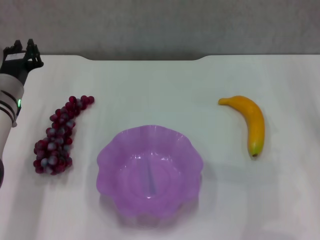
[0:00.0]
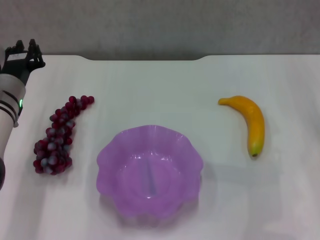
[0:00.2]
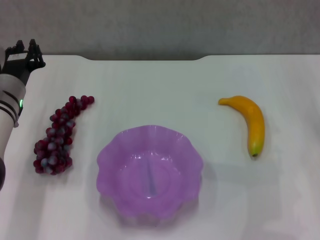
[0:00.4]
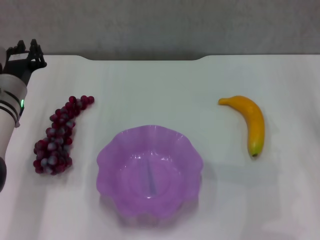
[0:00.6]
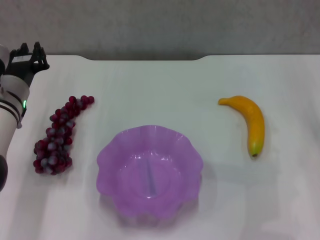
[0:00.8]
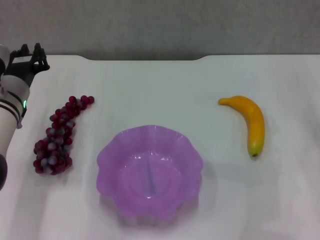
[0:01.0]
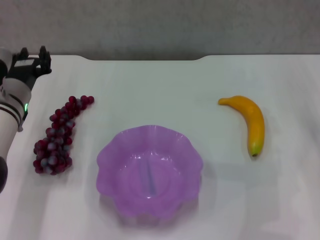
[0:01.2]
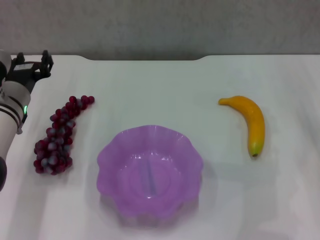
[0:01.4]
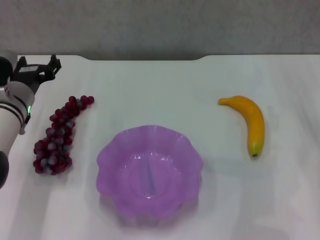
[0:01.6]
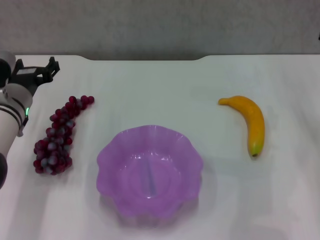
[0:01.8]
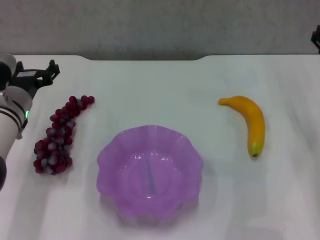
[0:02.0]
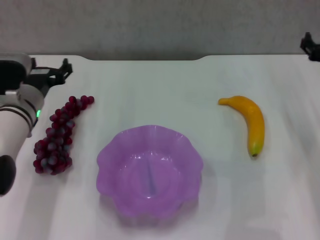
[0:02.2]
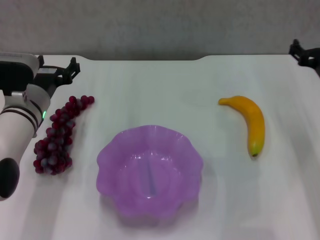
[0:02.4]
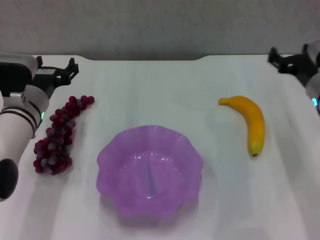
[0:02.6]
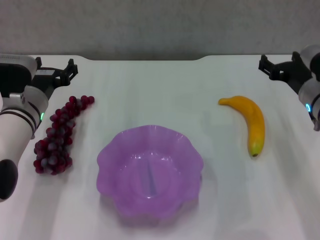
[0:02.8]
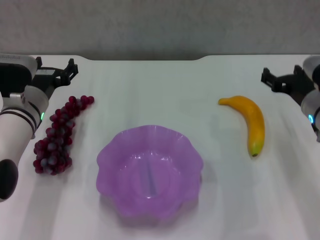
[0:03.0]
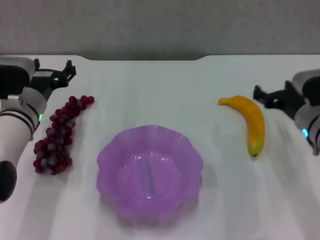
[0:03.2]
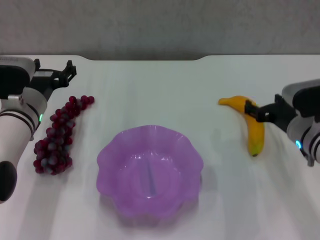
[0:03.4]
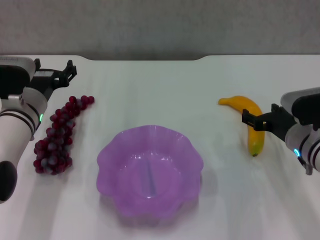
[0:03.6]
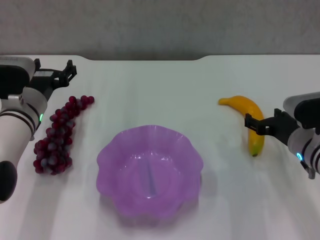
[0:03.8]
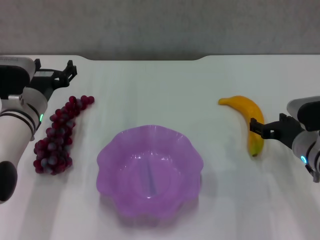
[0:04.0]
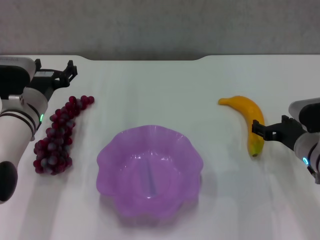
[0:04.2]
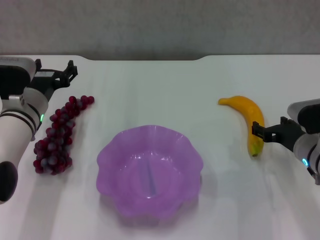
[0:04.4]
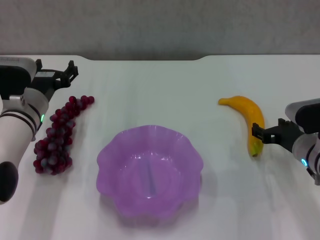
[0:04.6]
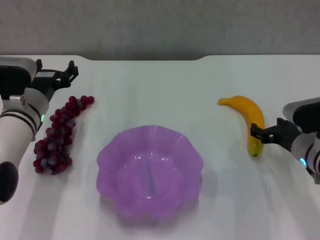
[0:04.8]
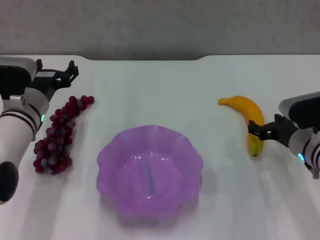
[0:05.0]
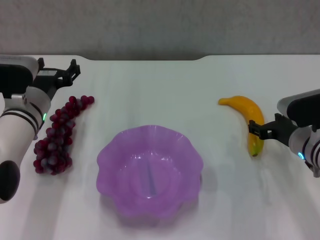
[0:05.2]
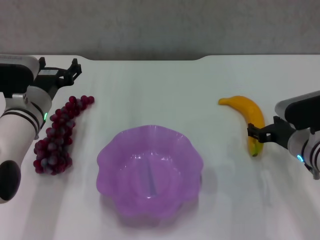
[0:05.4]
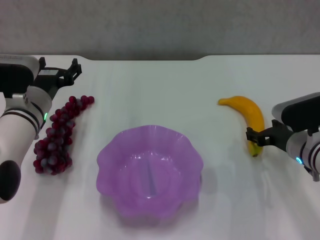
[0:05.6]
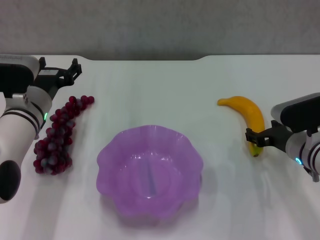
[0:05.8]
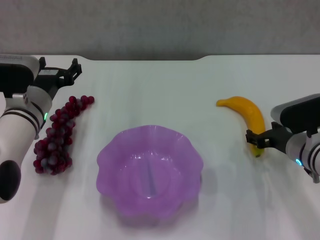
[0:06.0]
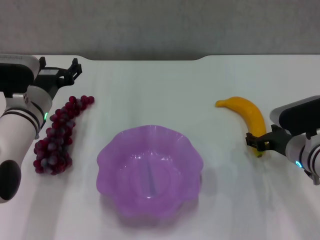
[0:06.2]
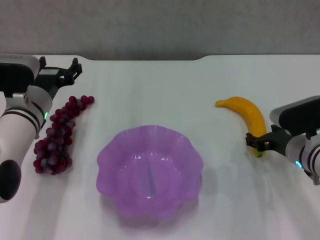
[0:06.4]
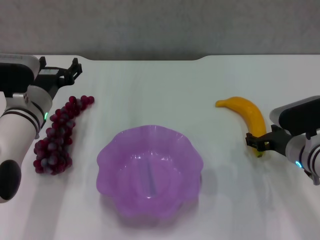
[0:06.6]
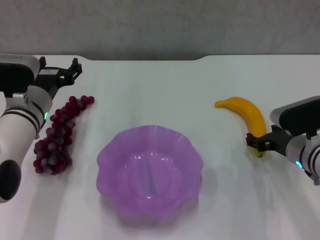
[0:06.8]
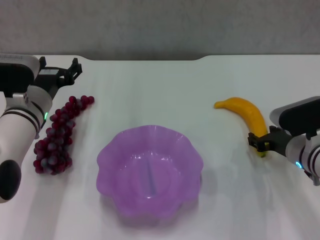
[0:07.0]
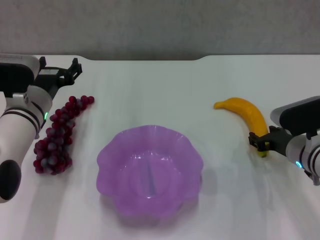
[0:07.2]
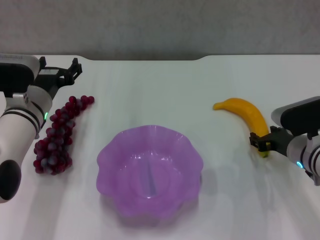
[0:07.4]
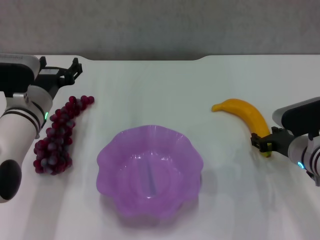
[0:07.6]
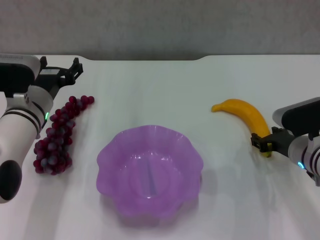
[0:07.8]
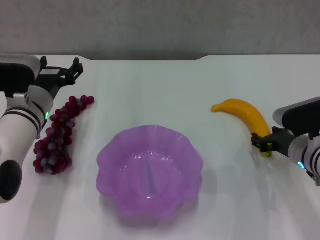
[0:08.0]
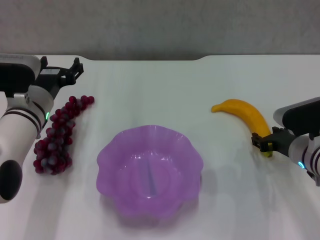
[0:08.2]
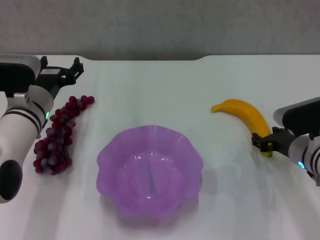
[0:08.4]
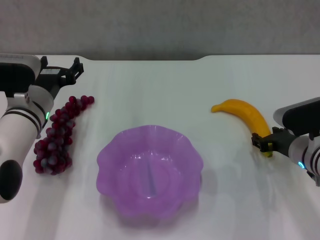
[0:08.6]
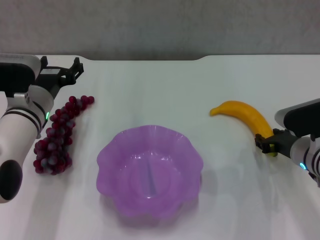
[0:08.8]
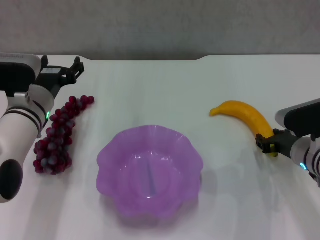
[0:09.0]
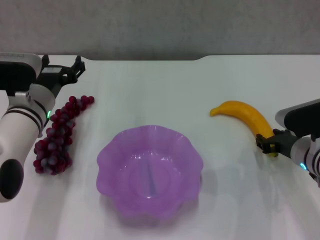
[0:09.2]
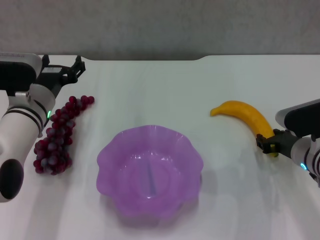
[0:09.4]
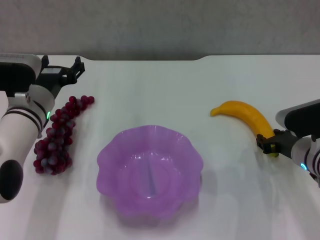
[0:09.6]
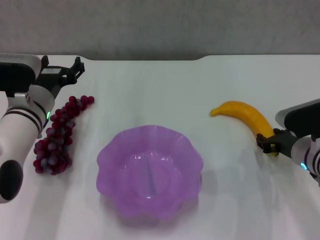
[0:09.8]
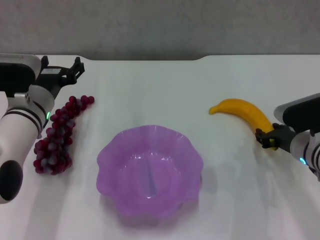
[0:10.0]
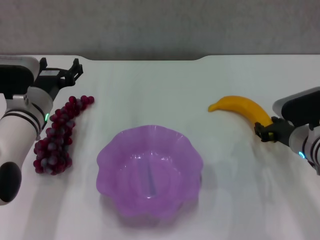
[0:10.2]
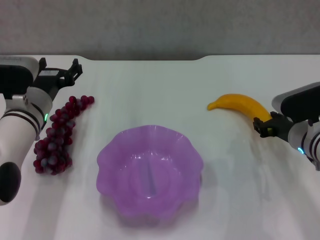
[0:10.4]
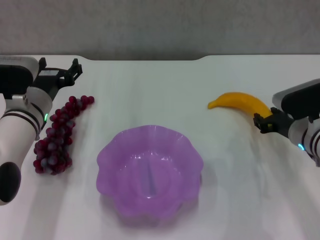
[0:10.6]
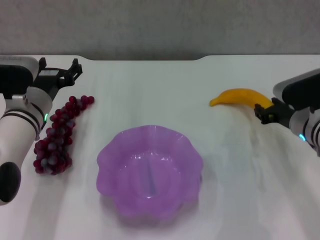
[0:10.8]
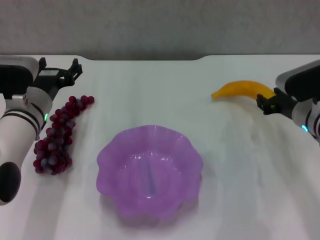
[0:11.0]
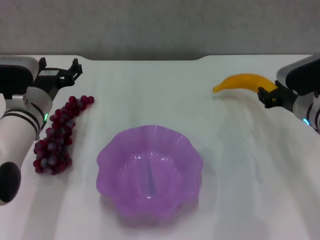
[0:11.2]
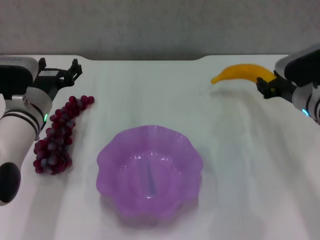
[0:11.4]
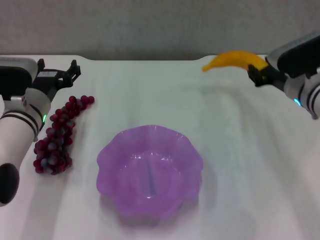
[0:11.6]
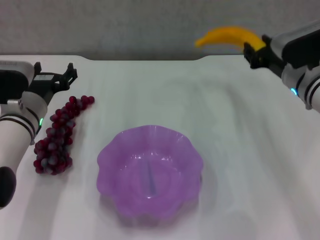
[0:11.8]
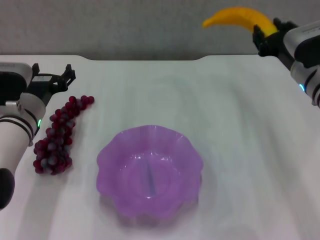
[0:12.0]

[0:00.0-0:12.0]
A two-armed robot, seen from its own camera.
Step, 0:00.0 to 0:09.2: Grasp the banana with right gripper.
0:00.0 to 0:01.6: The left gripper opens.
0:01.6 to 0:03.0: The right gripper shifts approximately 5 cm to the left.
0:03.0 to 0:04.4: The right gripper ends up about 5 cm from where it was.
0:04.4 to 0:06.0: The grippers make only small movements.
0:06.0 to 0:09.0: Both grippers stay put.
0:09.0 to 0:10.4: The grippers make only small movements.
0:10.4 to 0:12.0: The right gripper heads upward, covering approximately 10 cm.

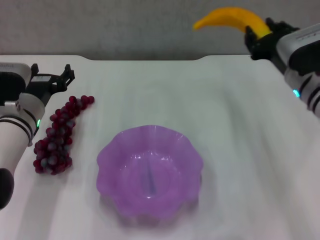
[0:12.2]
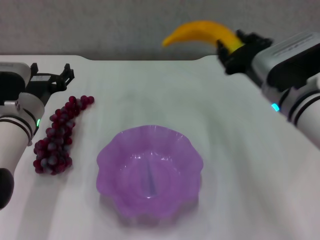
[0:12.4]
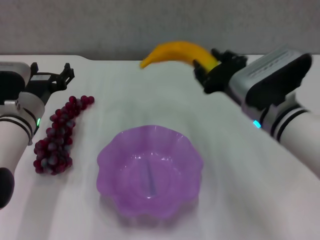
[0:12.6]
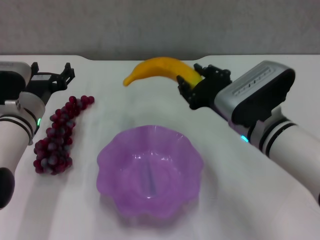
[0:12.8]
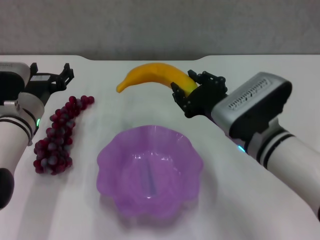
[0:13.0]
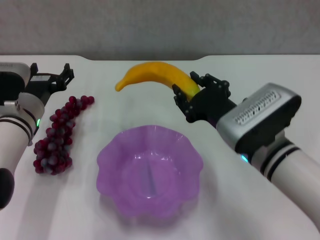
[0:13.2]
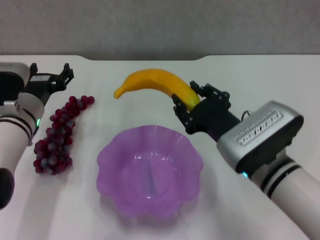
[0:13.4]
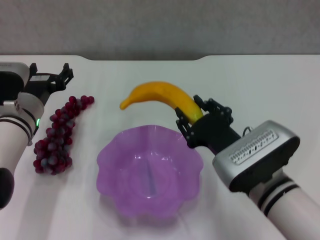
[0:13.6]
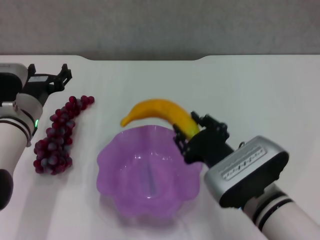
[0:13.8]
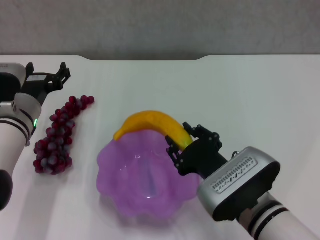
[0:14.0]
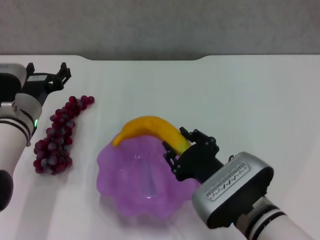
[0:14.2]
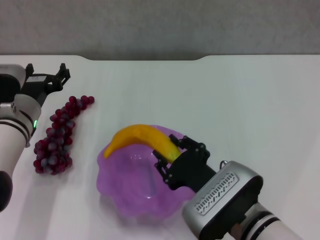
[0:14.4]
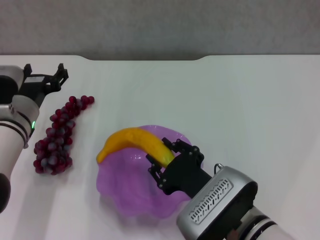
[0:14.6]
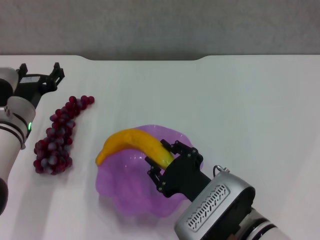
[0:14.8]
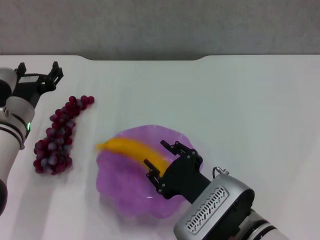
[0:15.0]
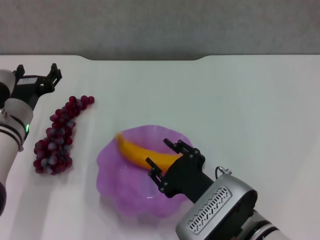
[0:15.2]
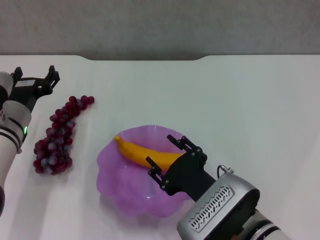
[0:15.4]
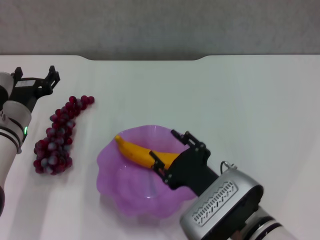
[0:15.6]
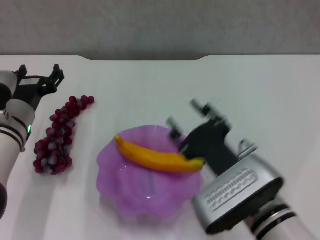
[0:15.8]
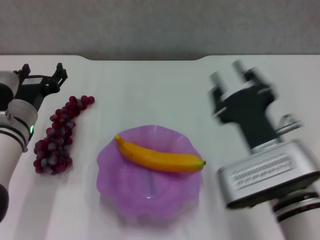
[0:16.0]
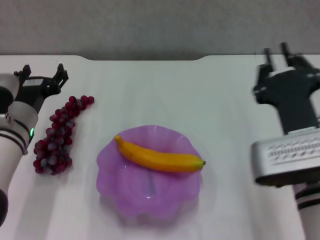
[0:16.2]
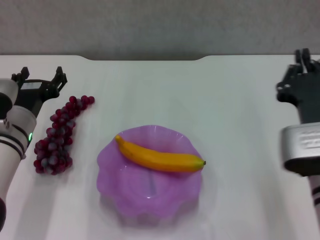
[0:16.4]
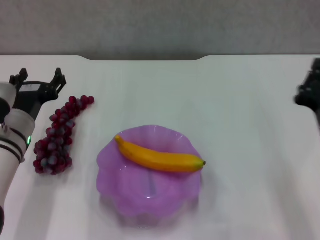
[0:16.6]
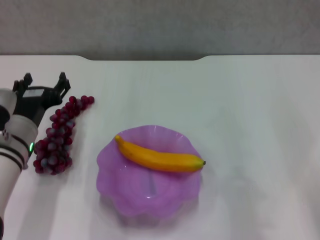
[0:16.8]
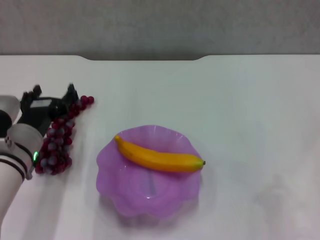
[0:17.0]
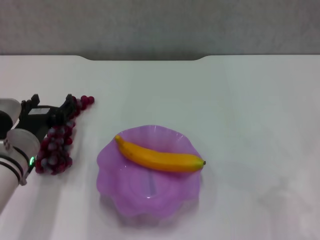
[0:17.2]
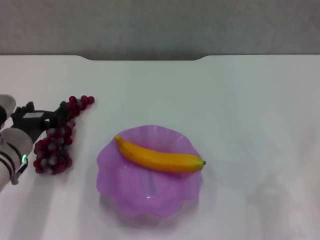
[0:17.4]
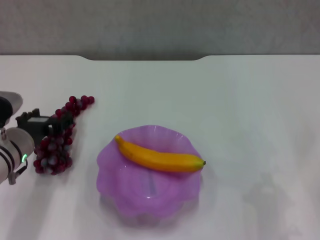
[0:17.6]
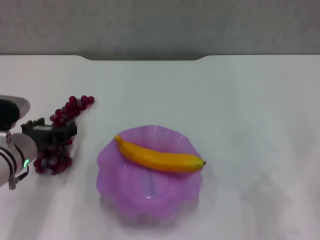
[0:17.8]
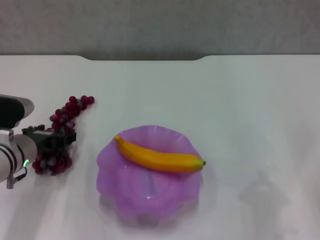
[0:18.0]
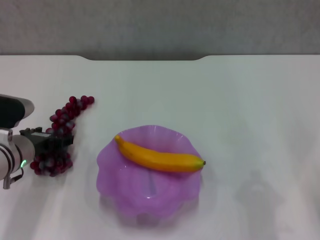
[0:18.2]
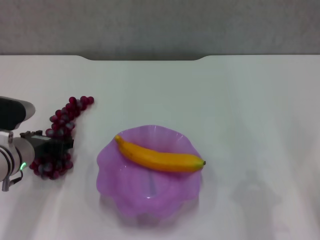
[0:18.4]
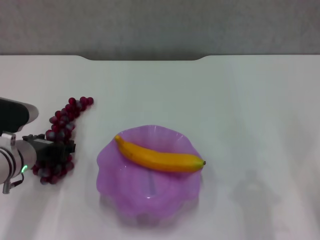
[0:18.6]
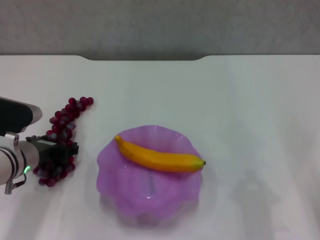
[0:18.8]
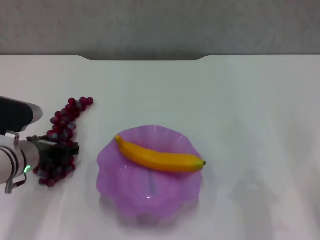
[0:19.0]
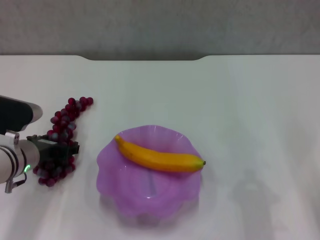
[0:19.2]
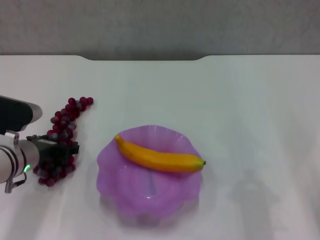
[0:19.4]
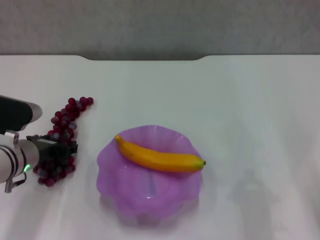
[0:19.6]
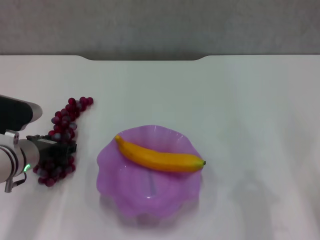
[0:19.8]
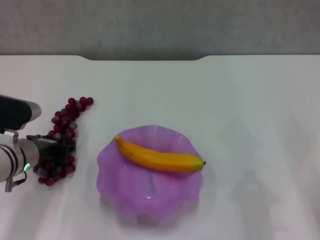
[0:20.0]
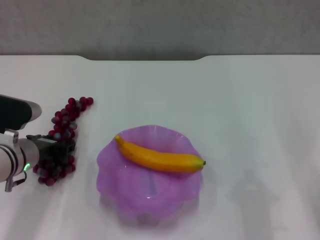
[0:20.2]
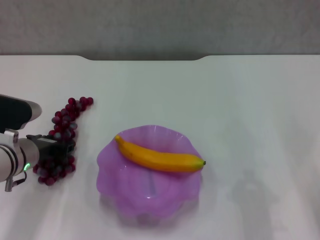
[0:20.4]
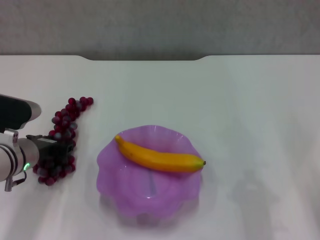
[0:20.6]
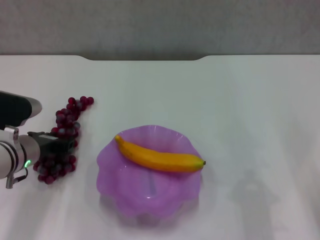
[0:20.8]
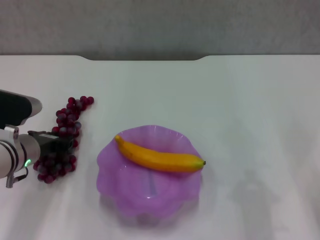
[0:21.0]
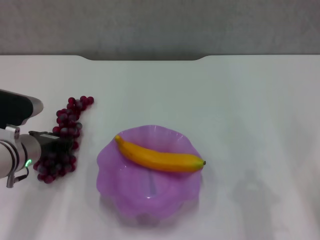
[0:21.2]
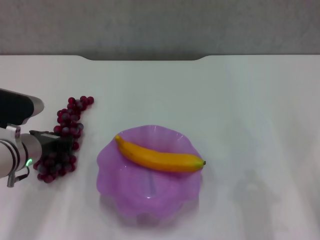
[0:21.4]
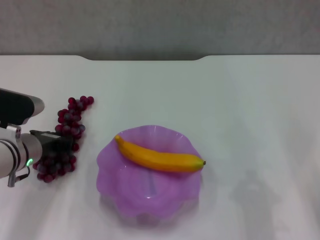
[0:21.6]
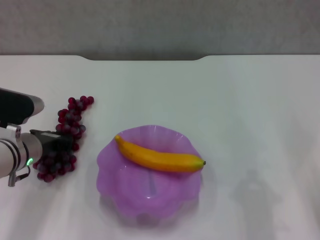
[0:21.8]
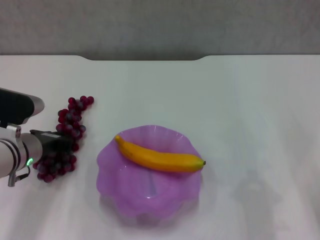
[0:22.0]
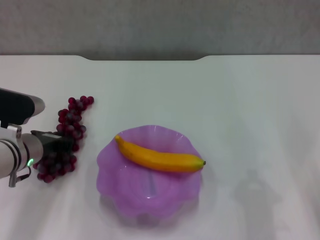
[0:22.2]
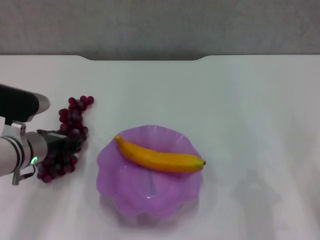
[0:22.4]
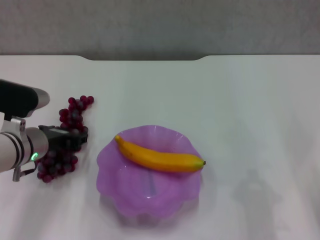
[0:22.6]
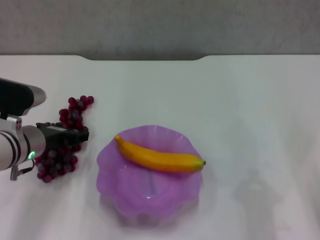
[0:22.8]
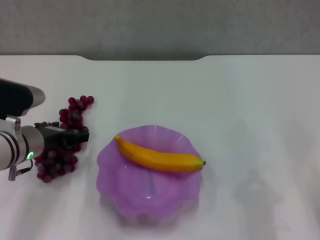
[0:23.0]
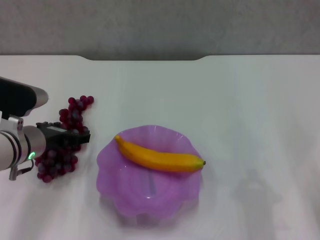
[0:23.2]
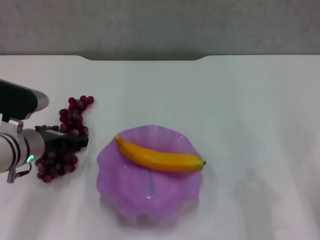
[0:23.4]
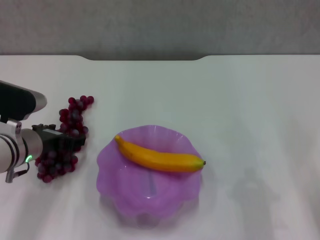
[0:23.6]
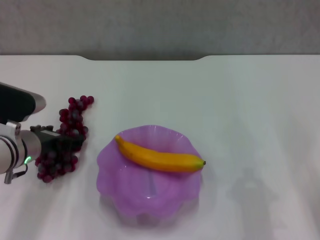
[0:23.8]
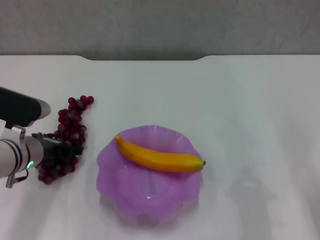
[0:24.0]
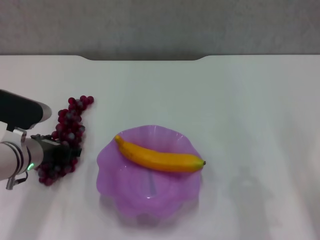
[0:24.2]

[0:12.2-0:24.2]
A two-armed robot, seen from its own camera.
Step, 0:12.2 to 0:15.4: Place the banana in the purple plate with right gripper.
0:12.2 to 0:13.8: The right gripper heads backward, to the left and downward, covering about 20 cm.
0:15.2 to 0:16.6: The right gripper is displaced to the right and upward by roughly 15 cm, and closes.
0:16.6 to 0:18.2: The right gripper travels to the right by approximately 5 cm.
0:18.2 to 0:19.8: The grippers stay close to where they were, moving slightly.
0:19.8 to 0:21.2: The left gripper closes.
0:21.2 to 0:22.6: The grippers move only a little.
0:22.6 to 0:24.2: The left gripper opens its fingers.
